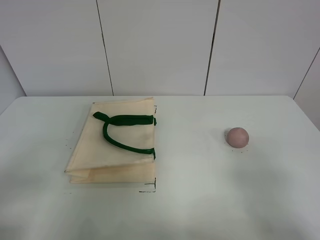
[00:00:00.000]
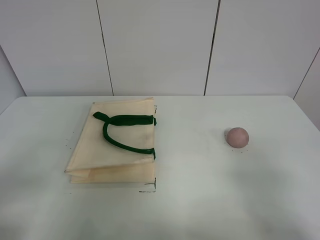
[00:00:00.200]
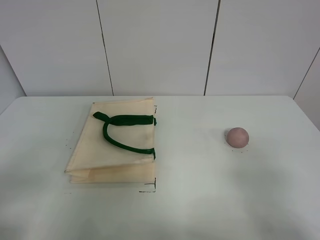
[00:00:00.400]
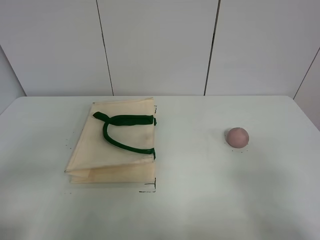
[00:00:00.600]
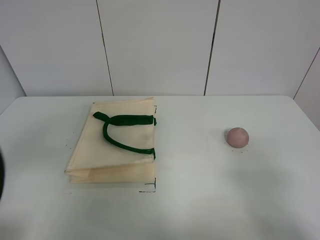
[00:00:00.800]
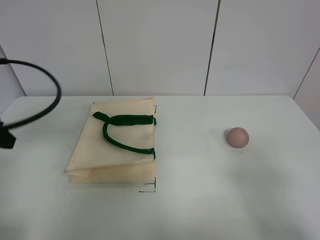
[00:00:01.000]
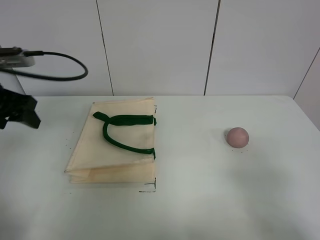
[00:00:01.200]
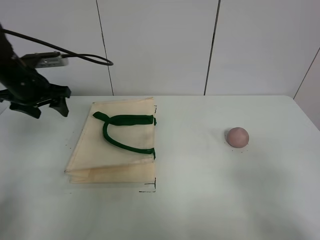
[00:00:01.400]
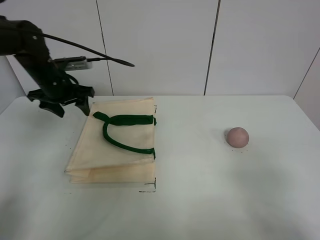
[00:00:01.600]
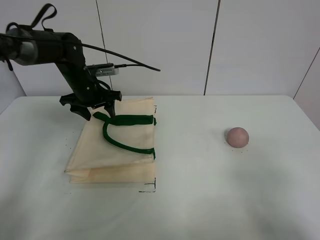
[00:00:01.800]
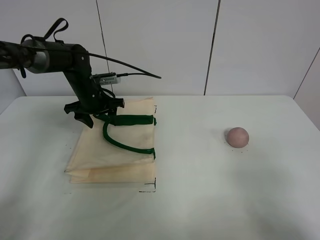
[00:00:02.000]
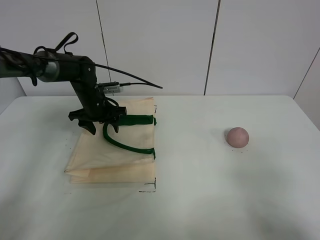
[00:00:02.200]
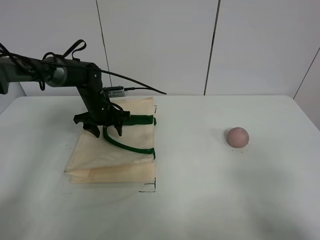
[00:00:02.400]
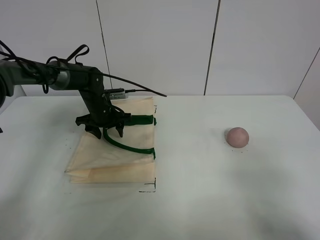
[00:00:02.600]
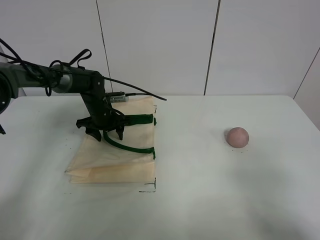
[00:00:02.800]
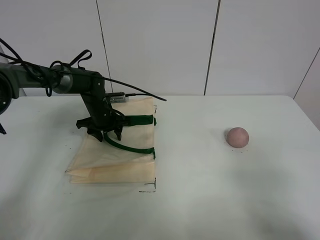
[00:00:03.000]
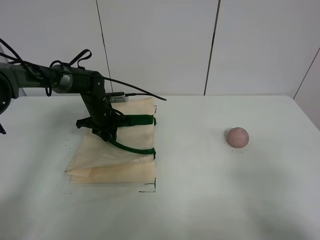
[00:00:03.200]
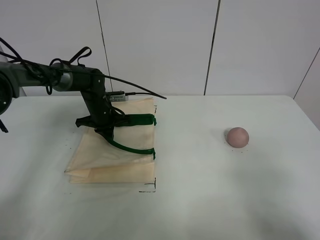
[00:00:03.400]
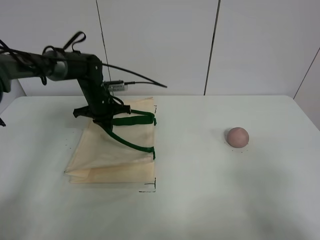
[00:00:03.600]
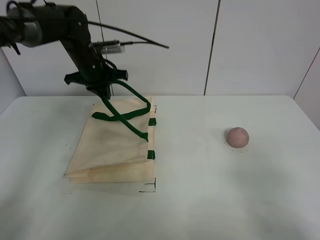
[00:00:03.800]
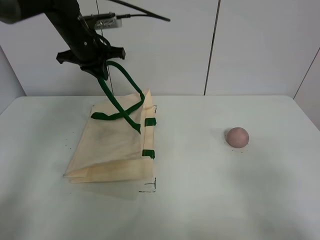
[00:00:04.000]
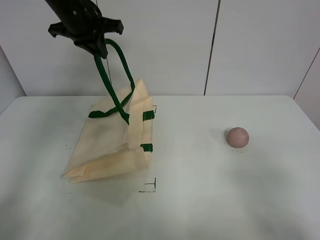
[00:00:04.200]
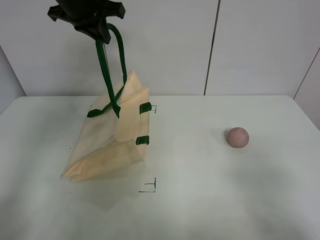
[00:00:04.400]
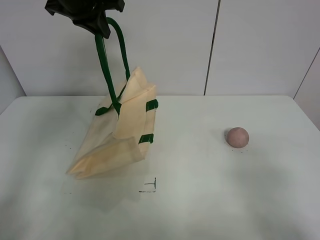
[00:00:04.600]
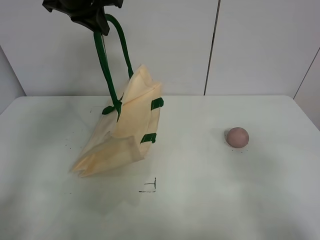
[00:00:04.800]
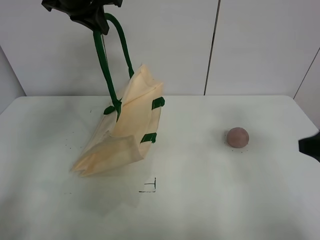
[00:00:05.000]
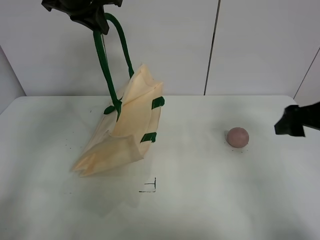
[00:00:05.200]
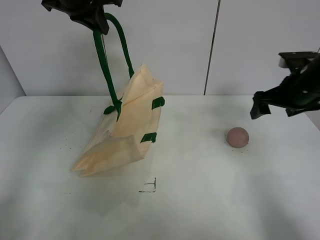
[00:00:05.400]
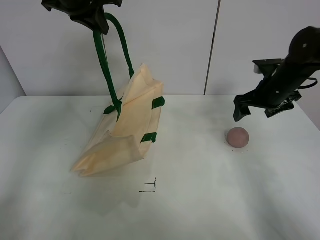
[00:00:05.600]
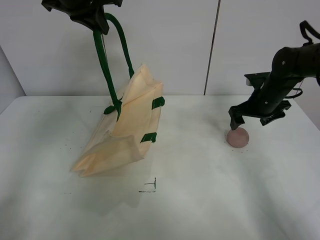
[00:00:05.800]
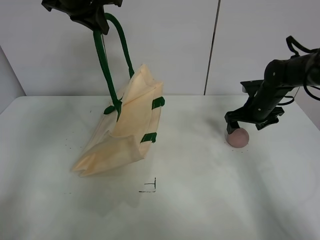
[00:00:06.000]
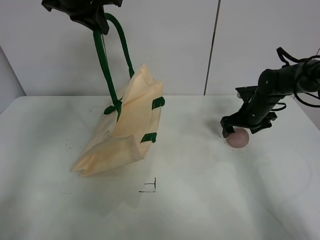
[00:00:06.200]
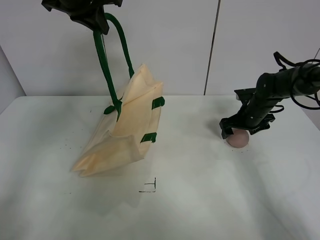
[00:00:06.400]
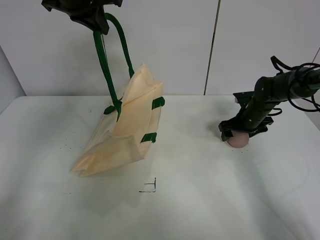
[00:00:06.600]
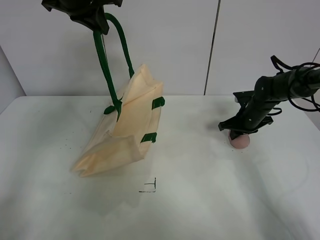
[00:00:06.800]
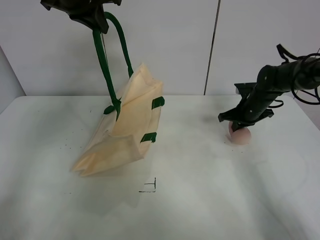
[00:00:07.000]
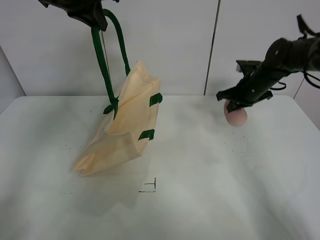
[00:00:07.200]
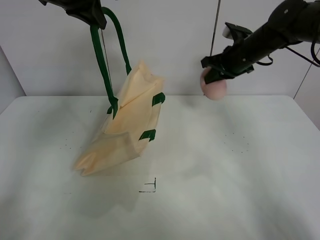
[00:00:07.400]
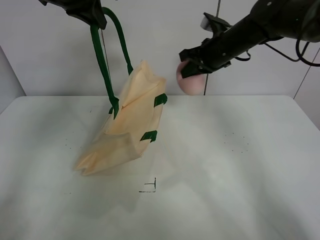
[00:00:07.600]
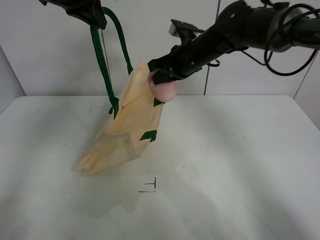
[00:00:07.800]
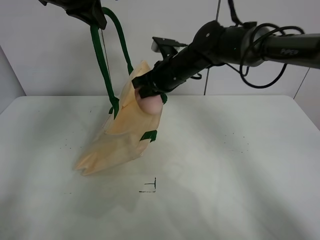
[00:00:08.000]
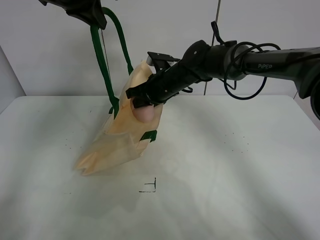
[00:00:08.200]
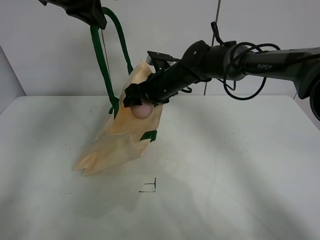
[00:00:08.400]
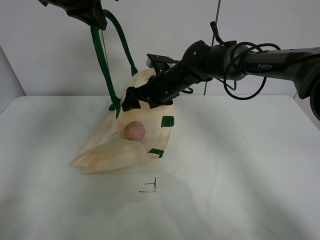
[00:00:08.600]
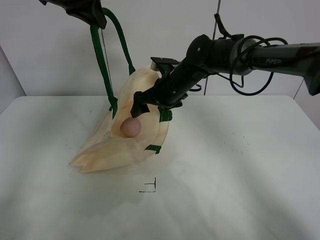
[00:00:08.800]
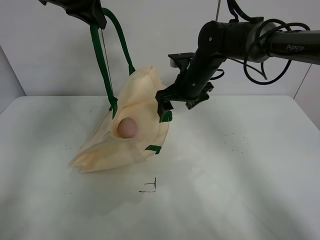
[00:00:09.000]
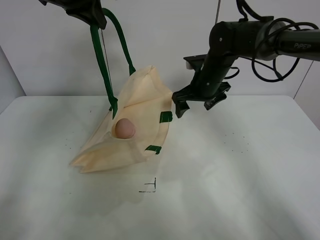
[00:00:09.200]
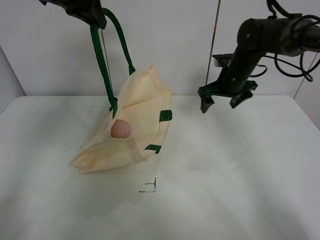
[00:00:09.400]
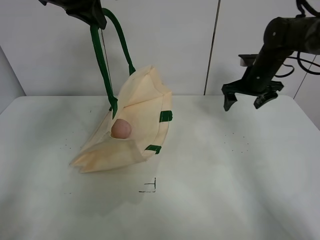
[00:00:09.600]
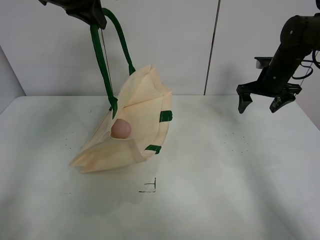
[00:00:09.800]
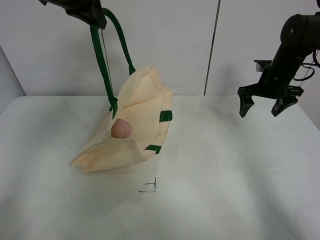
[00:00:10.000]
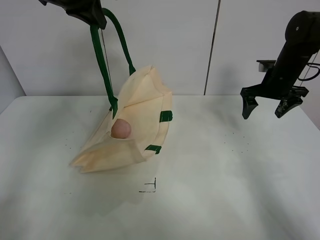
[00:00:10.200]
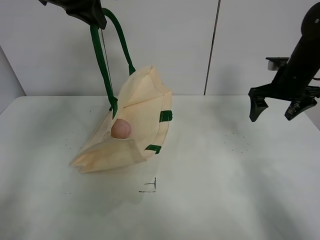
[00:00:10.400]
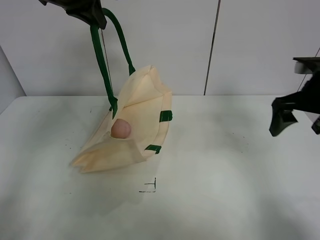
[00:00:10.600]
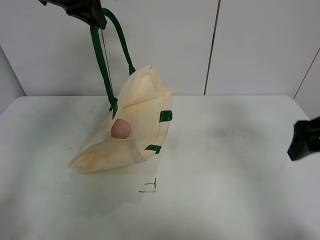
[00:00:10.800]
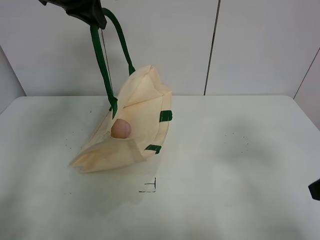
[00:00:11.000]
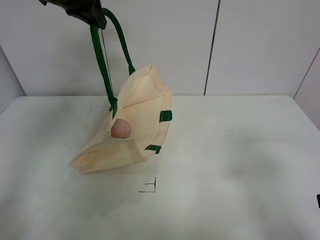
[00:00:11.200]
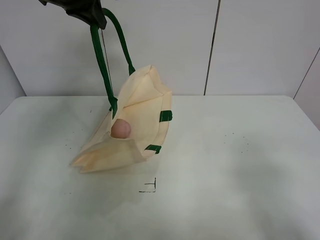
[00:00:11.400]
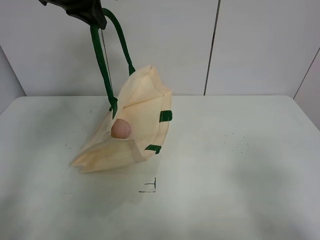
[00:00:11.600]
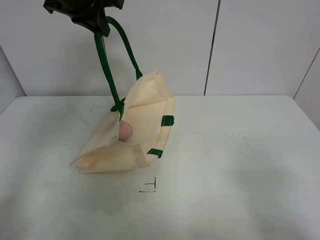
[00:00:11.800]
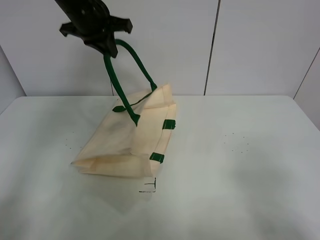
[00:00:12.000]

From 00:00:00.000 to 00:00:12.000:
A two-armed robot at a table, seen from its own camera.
Task of the whole recording: open the white linen bag and put the peach in the bag.
Step, from 00:00:00.000 to 00:00:04.400: Lift the handbag with left gripper.
Step, from 00:00:04.600 to 00:00:06.800: Grasp the peach with right gripper.
Step, from 00:00:07.000 to 00:00:08.800: Place the peach in the handbag with right gripper.
From 00:00:00.000 to 00:00:01.600: The left gripper moves forward, some 40 cm.
From 00:00:01.600 to 00:00:03.000: The left gripper travels downward and to the right by about 15 cm.
From 00:00:03.000 to 00:00:04.400: The left gripper travels upward by roughly 30 cm, and closes up.
From 00:00:04.400 to 00:00:06.000: The right gripper shifts approximately 40 cm forward.
From 00:00:06.000 to 00:00:07.600: The right gripper goes some 20 cm upward and to the left, and closes its fingers.
From 00:00:07.600 to 00:00:09.000: The right gripper is displaced to the left and downward by approximately 10 cm, and opens its fingers.
From 00:00:09.000 to 00:00:10.400: The right gripper is displaced to the right by some 20 cm.
From 00:00:10.400 to 00:00:12.000: The right gripper heads backward, covering roughly 40 cm. The left gripper heads downward, covering approximately 5 cm.

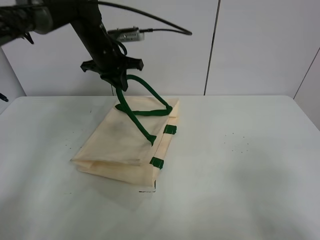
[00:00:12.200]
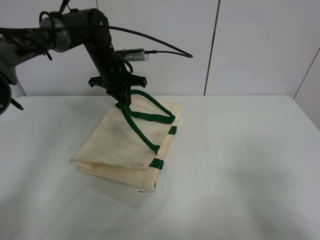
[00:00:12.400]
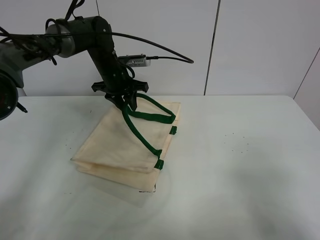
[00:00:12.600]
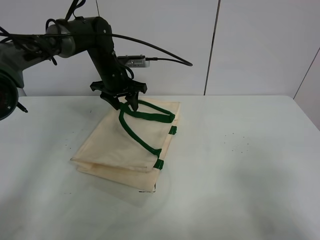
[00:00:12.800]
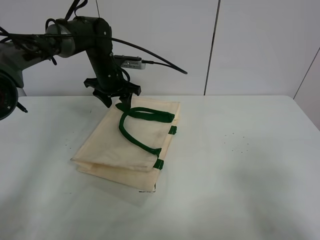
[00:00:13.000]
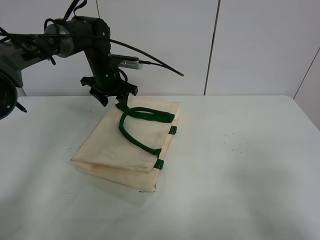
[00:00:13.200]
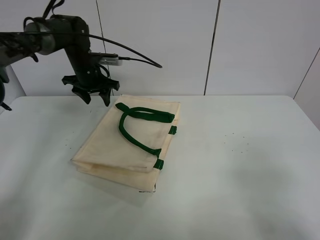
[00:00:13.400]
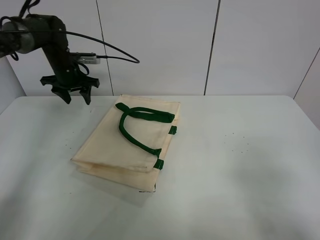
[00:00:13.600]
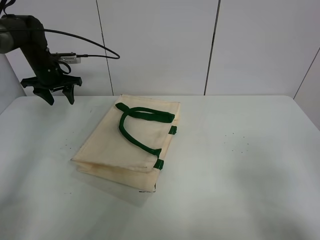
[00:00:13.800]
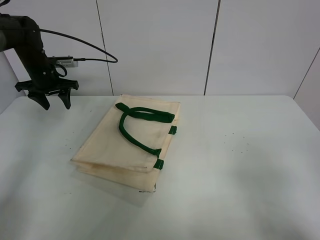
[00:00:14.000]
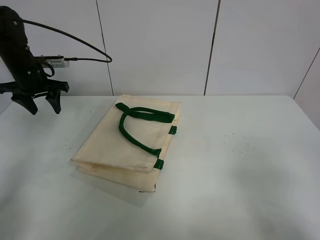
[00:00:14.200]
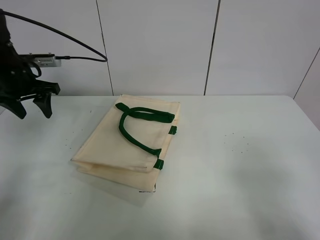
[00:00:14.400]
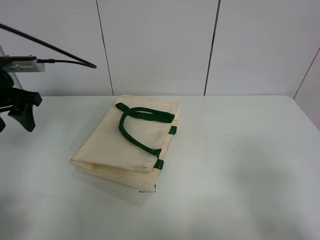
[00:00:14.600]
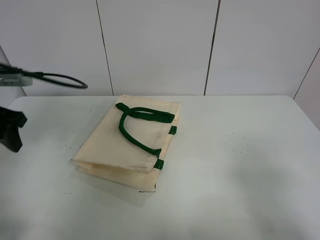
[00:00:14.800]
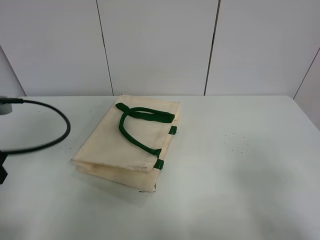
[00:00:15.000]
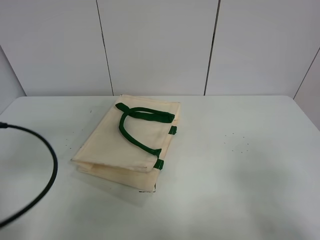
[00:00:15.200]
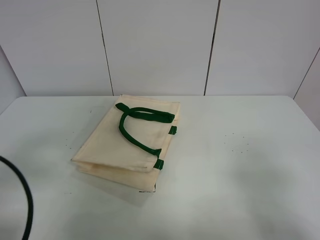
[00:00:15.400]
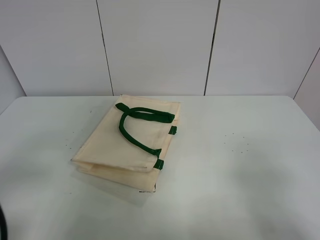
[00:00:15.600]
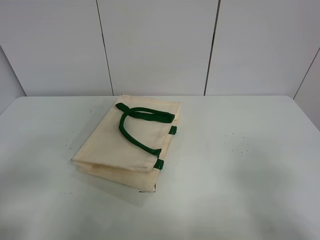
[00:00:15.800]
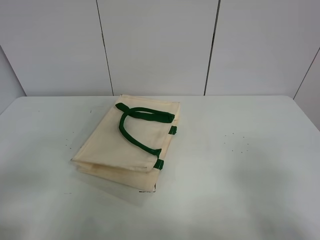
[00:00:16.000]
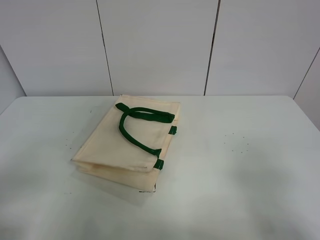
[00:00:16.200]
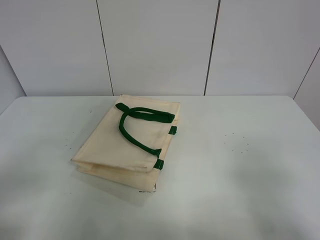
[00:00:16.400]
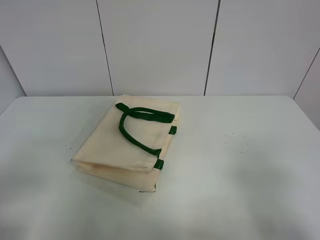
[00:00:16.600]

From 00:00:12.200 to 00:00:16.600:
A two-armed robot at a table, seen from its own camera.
Task of the whole recording: open the white linen bag and put the peach in the bag.
From 00:00:12.200 to 00:00:13.600: The left gripper heads to the left, covering approximately 15 cm, and opens up.
From 00:00:13.600 to 00:00:15.200: The left gripper is displaced backward by some 40 cm.
From 00:00:15.200 to 00:00:16.600: The left gripper is displaced backward by some 10 cm.
